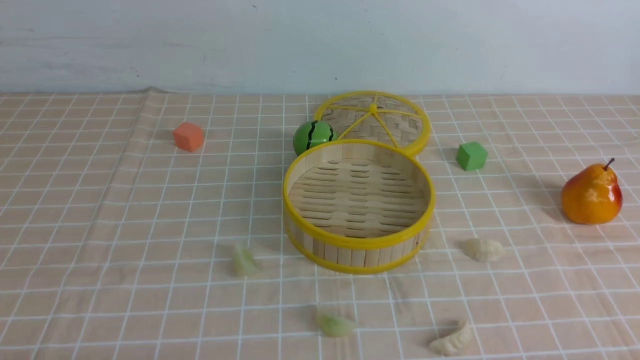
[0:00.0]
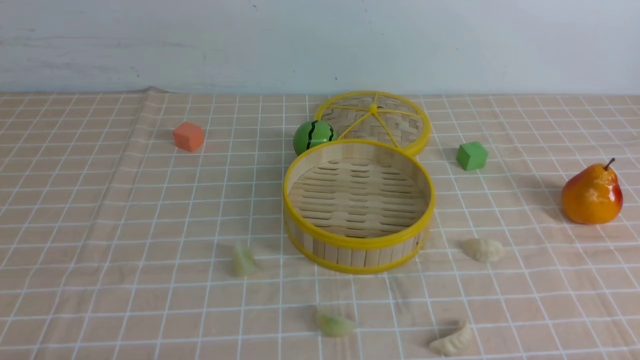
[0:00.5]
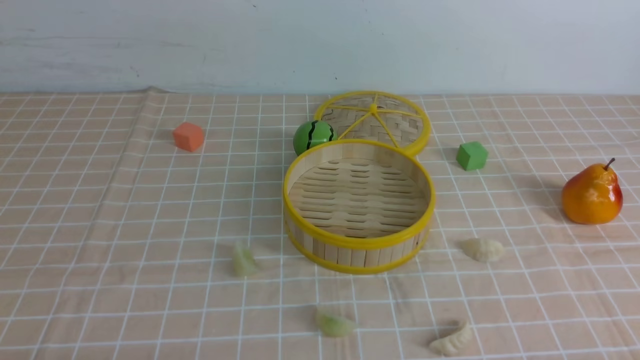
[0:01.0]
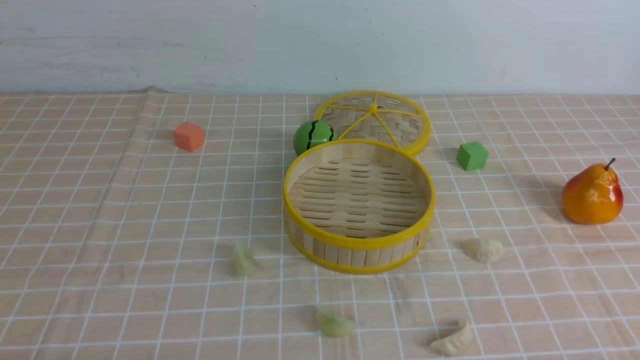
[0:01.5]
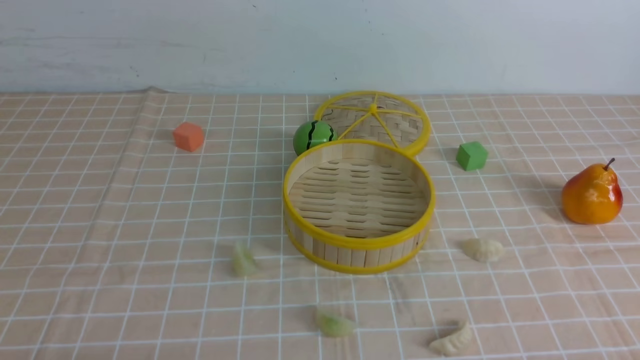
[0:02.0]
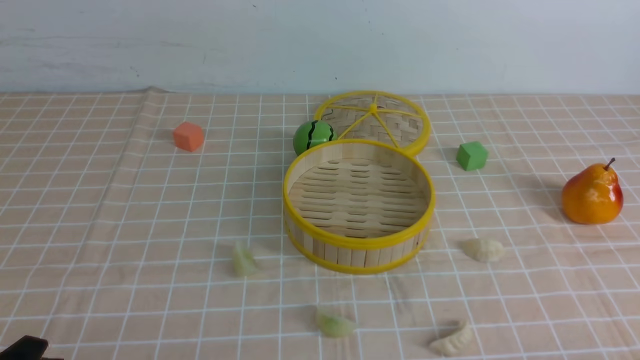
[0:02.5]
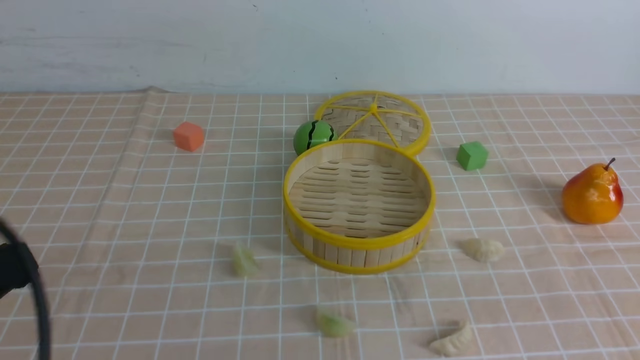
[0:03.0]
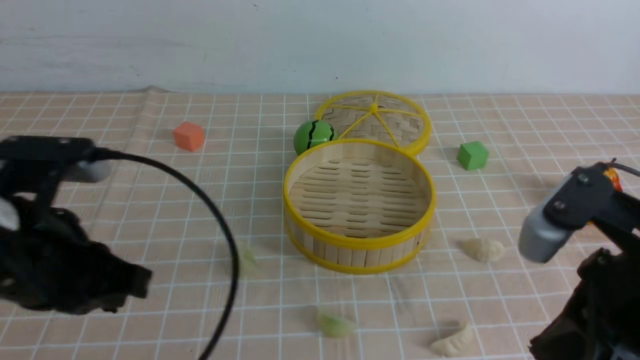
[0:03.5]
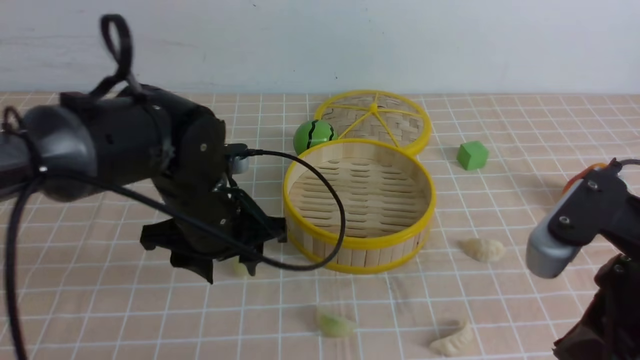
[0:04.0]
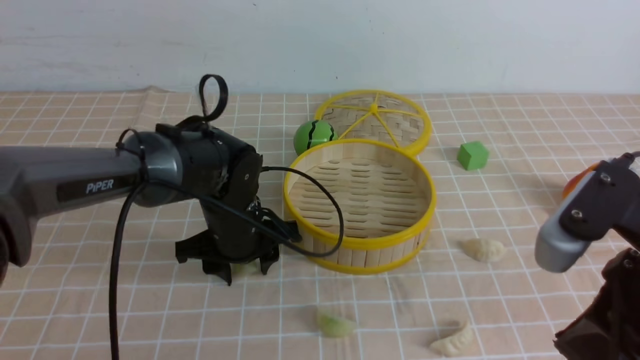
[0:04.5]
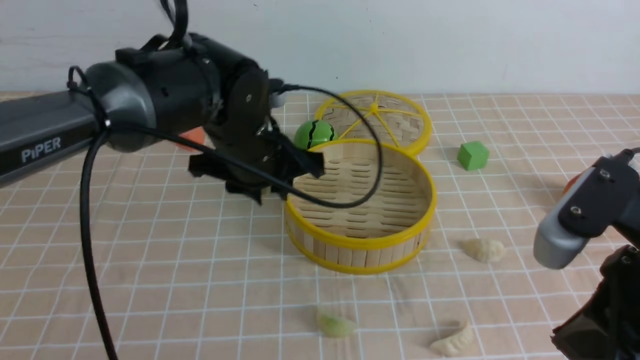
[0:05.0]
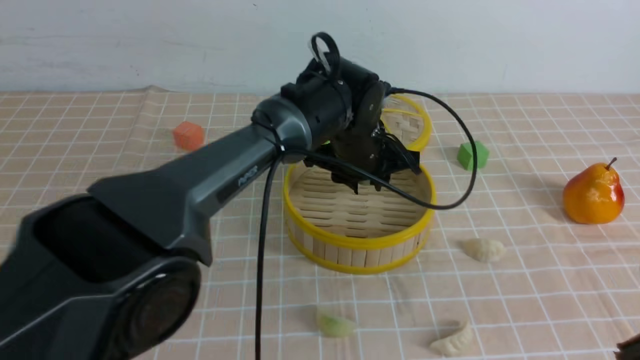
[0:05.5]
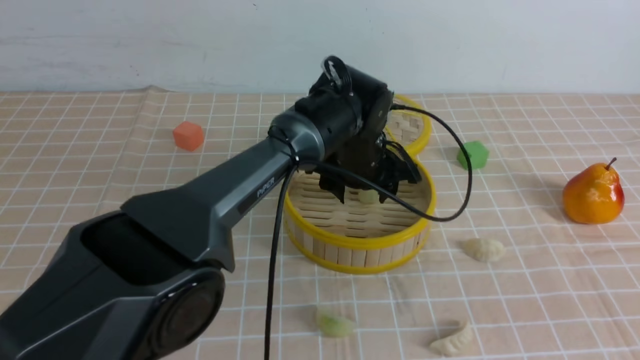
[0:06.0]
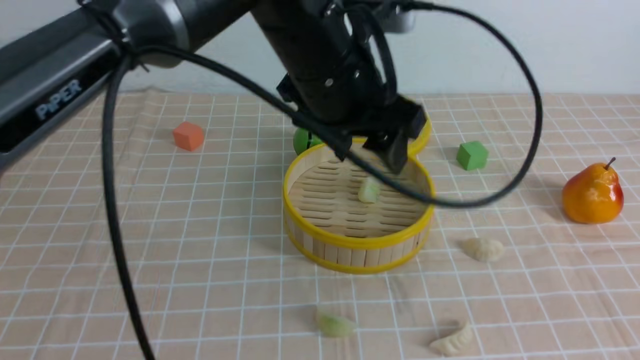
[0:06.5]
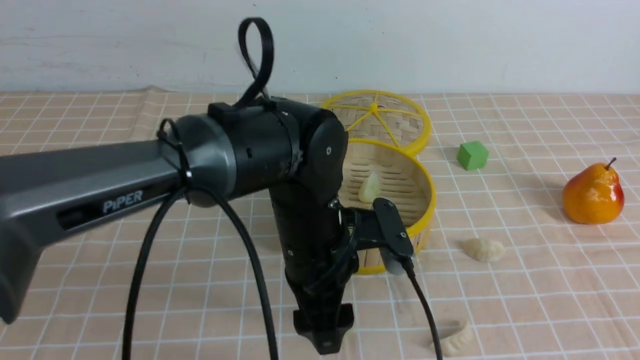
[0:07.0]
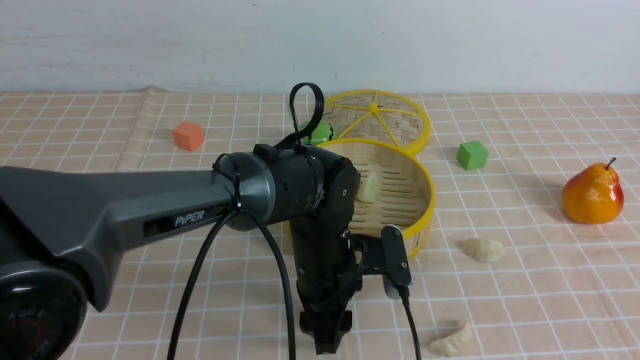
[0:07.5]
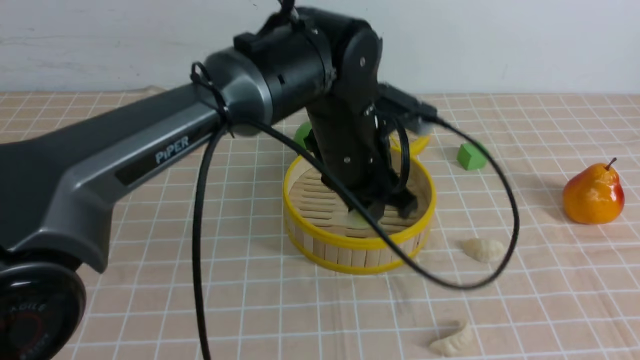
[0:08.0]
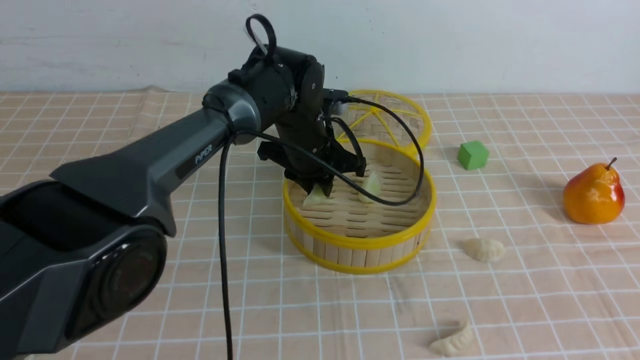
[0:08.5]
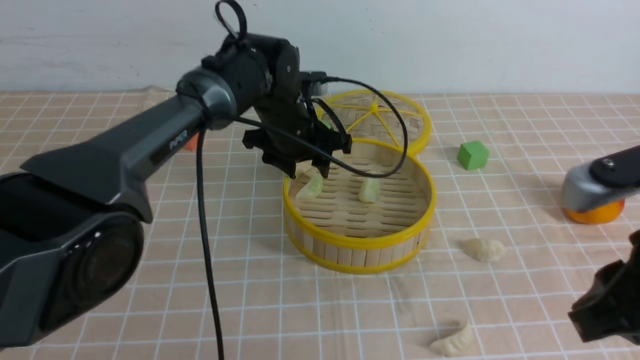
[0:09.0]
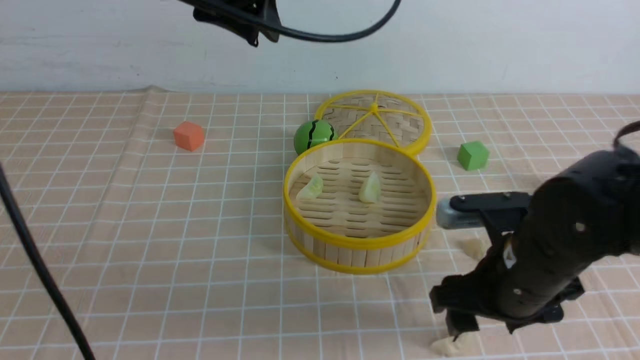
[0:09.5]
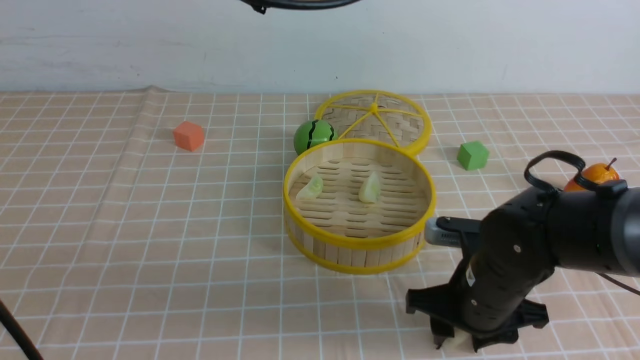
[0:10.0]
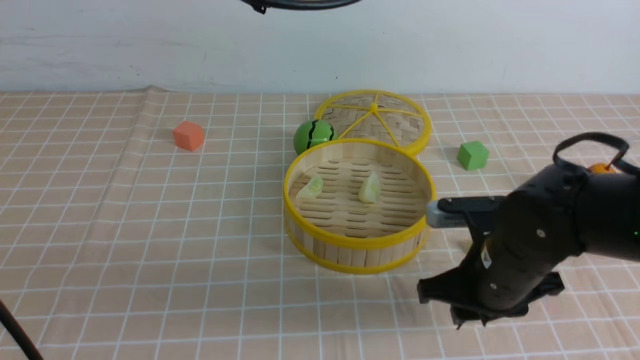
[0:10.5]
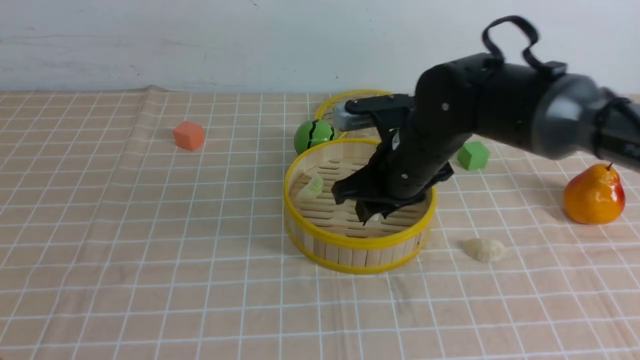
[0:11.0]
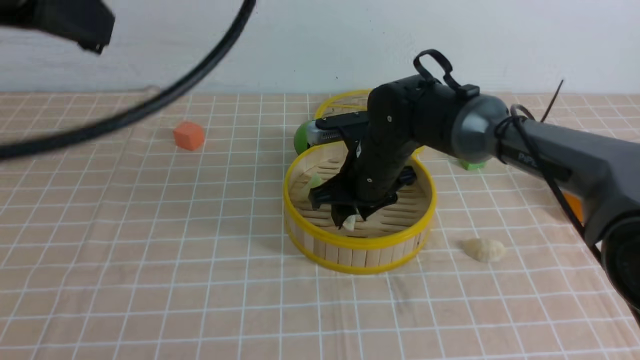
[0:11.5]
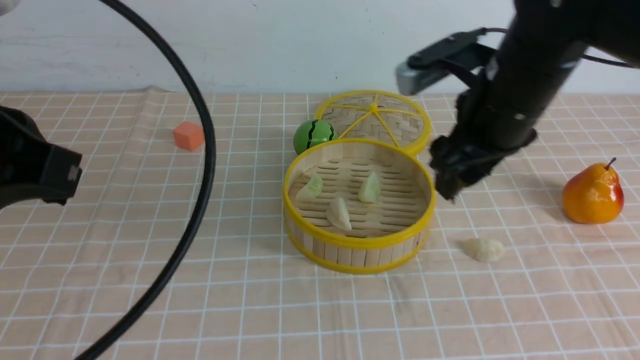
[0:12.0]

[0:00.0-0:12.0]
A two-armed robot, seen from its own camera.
Task of the whole recording: put the dumplings into the steamer on the table with the brown tablecloth.
Step, 0:00.0 to 0:04.5: use the left arm to grab a dumpling.
Step, 0:05.0 to 0:06.0: use the left arm to put the dumpling into the steamer.
Step, 0:06.5 to 0:07.5: use the left arm to grab a dumpling.
Step, 0:08.0 to 0:09.0: use the left arm to put the dumpling into the steamer.
Step, 0:09.5 to 0:10.0: use the right arm to grab a dumpling.
Step, 0:10.5 to 0:11.5: use the right arm to put the dumpling into the steamer.
0:02.0 to 0:04.0: The right gripper travels upward, forward and to the left by approximately 20 cm, and closes. The left gripper shifts about 30 cm forward and to the right, and closes, then reopens.
0:04.0 to 0:06.0: The right gripper goes about 5 cm backward. The left gripper travels to the right and forward by some 20 cm.
0:06.0 to 0:08.0: The left gripper swings up and down, approximately 15 cm each way, with 2 reversals, and closes.
0:08.0 to 0:10.0: The left gripper travels upward and to the left by about 25 cm, and opens and closes again, while the right gripper heads downward, forward and to the left, covering about 35 cm, and opens.
0:10.0 to 0:12.0: The left gripper travels backward and to the left by about 20 cm. Meanwhile the right gripper goes some 15 cm upward and forward.

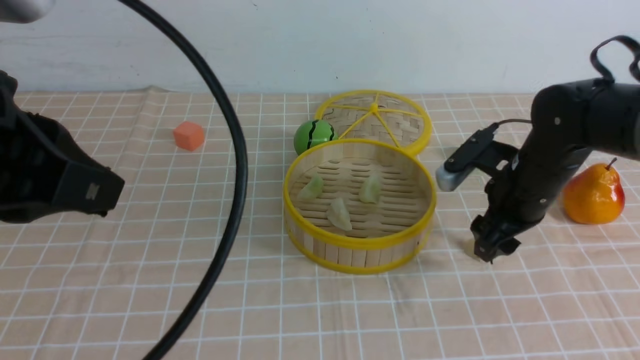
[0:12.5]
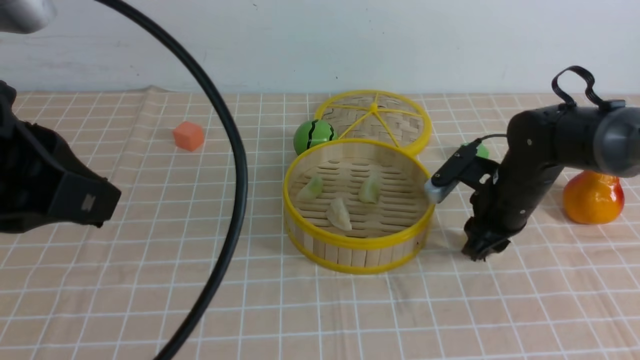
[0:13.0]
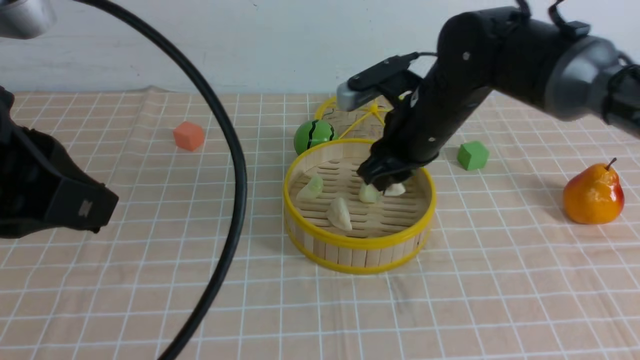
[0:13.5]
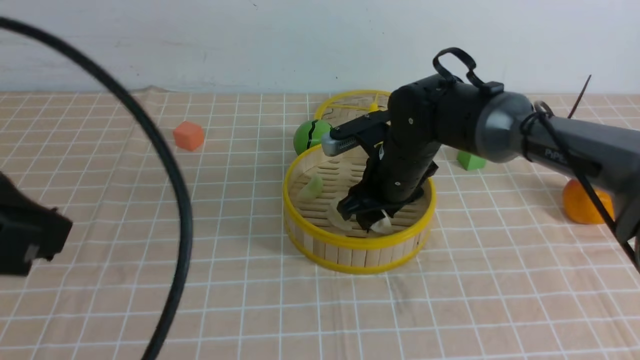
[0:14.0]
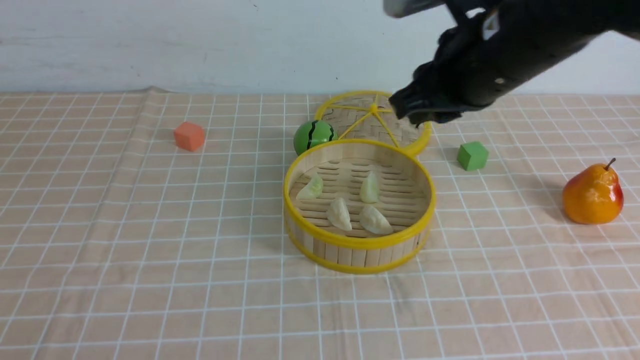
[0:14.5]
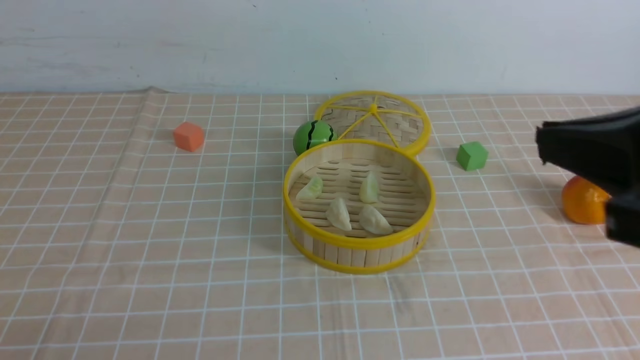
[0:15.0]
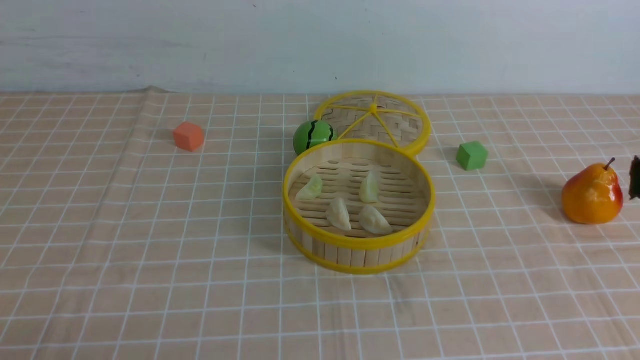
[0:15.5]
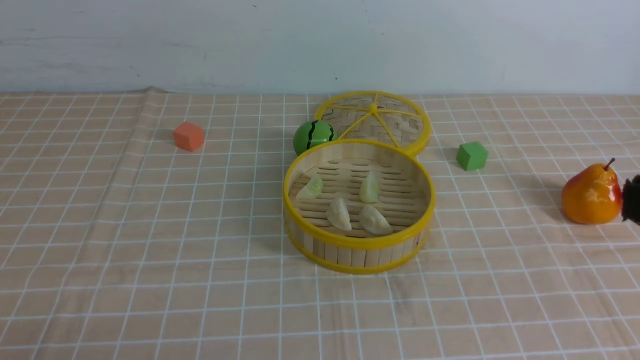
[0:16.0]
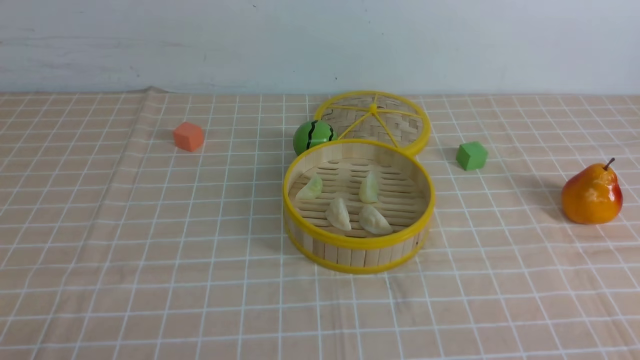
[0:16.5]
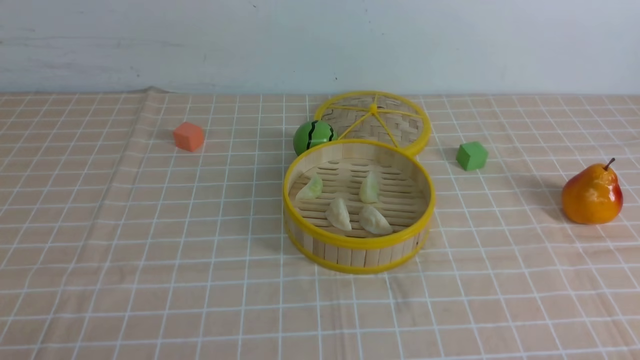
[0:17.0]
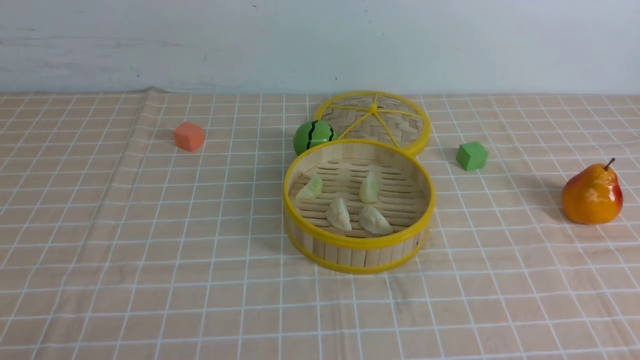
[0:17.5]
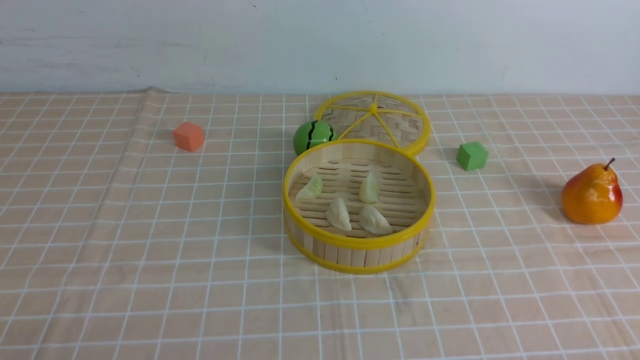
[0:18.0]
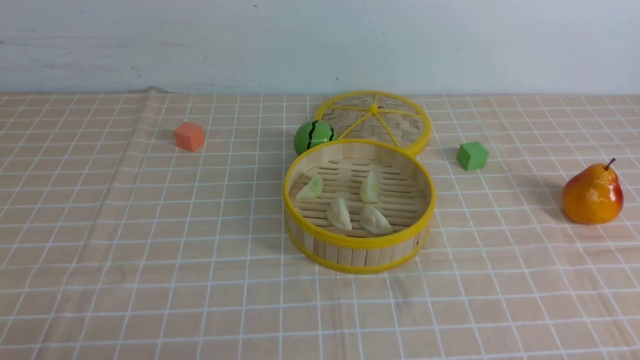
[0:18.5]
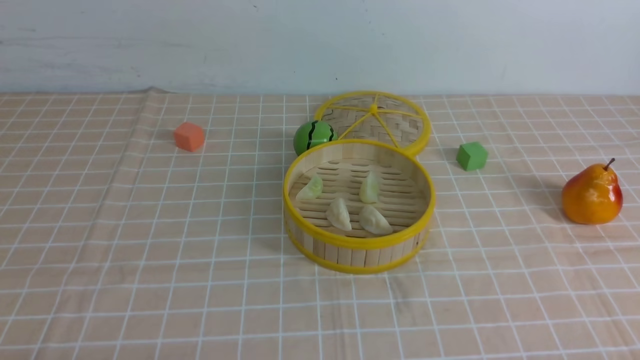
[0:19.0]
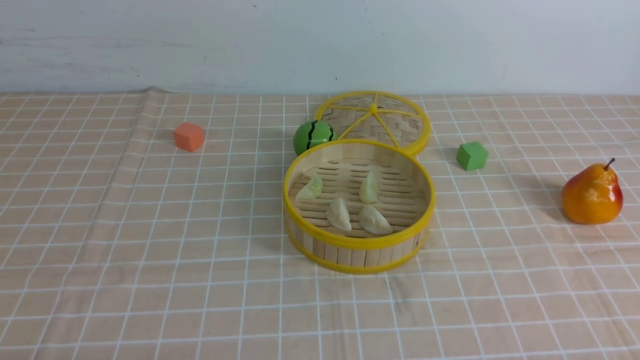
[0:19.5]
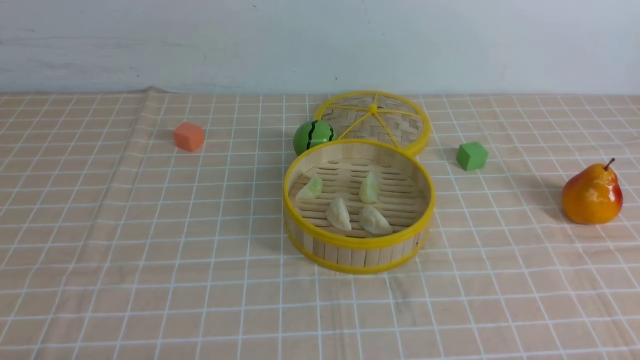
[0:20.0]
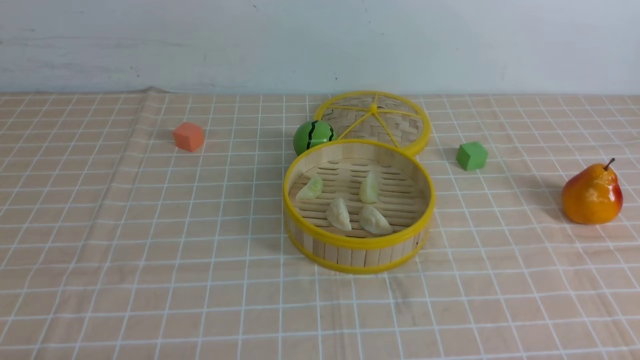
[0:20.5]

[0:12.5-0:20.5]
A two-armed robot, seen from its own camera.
Task of the whole recording: put the dumplings into the steamer on the table with the brown tablecloth.
Step, 0:13.0 to 0:14.0: use the right arm to put the dumpling into the steamer.
0:12.5 to 0:14.5: The right gripper shifts roughly 20 cm upward, to the left and backward, and closes up; the left gripper goes some 20 cm backward, downward and to the left.
0:14.5 to 0:16.5: The right gripper travels backward, to the right and downward by some 35 cm.
